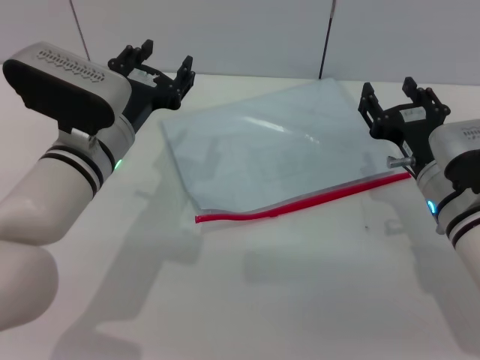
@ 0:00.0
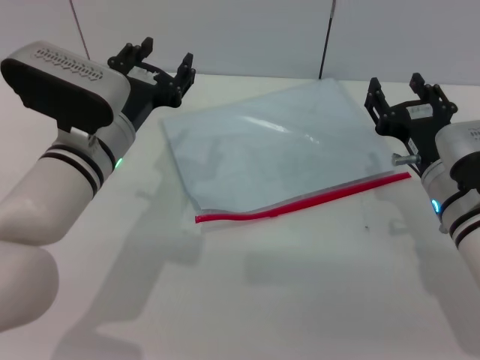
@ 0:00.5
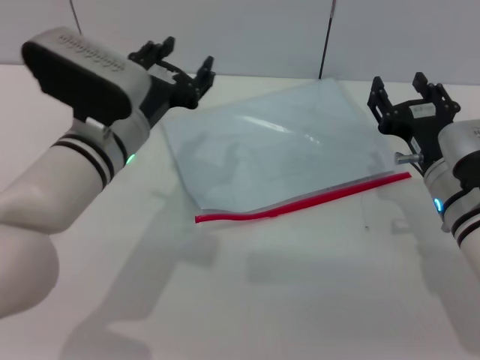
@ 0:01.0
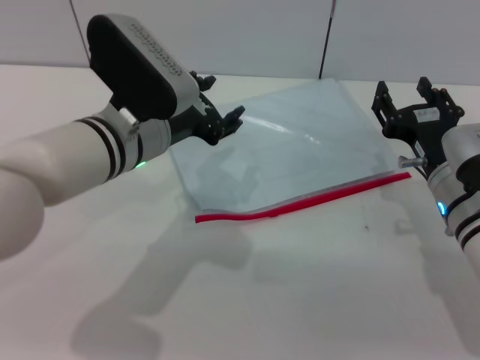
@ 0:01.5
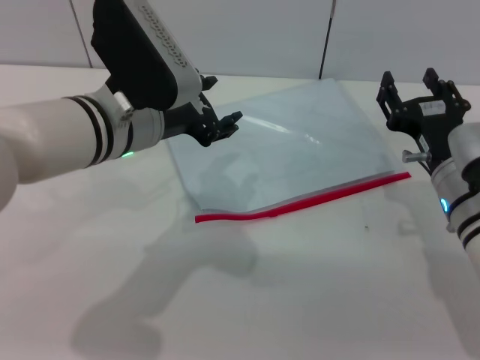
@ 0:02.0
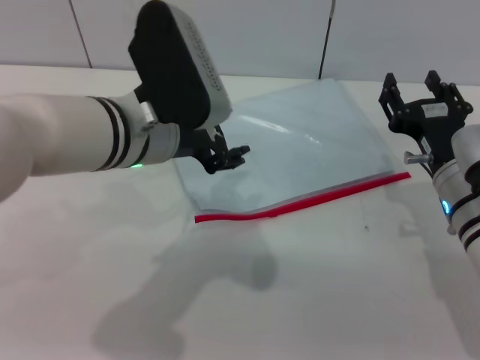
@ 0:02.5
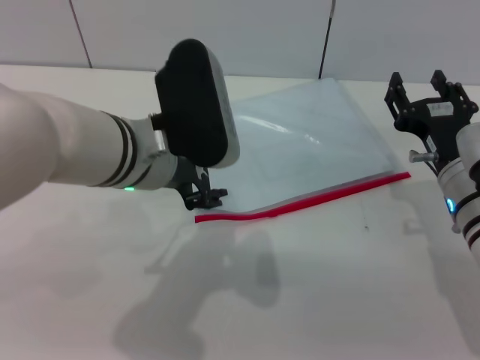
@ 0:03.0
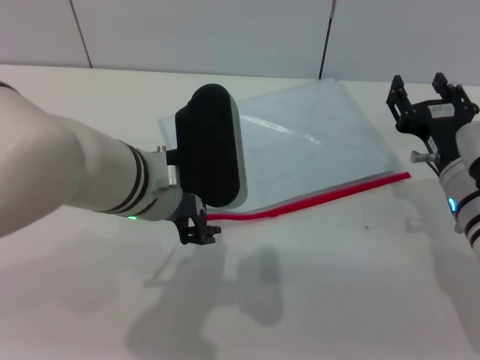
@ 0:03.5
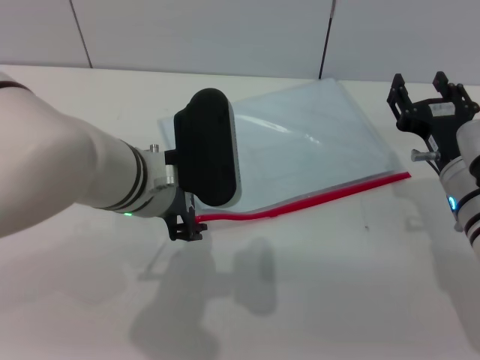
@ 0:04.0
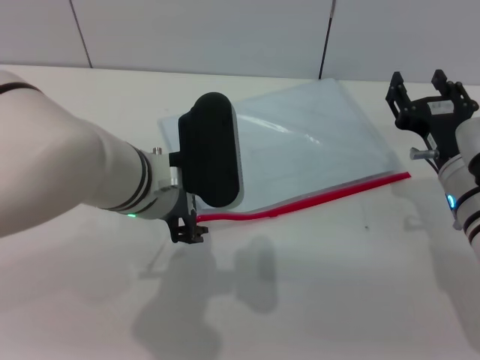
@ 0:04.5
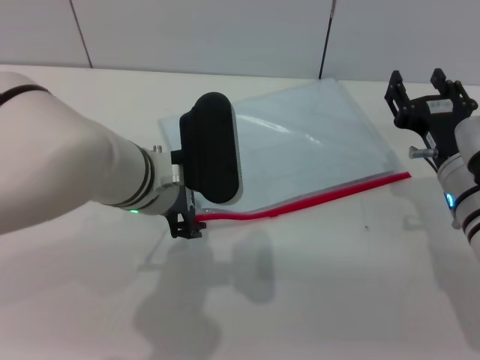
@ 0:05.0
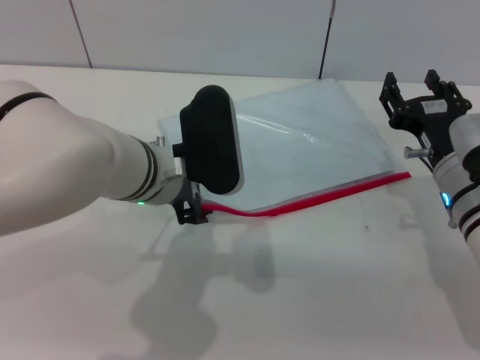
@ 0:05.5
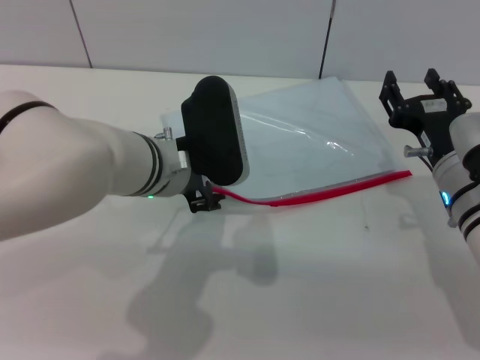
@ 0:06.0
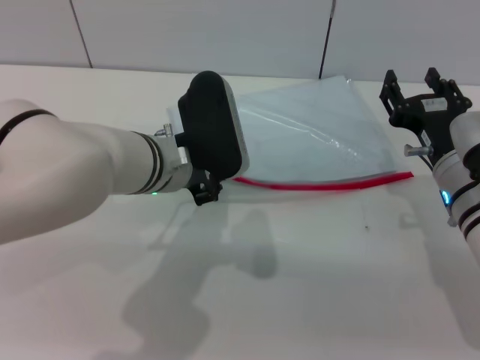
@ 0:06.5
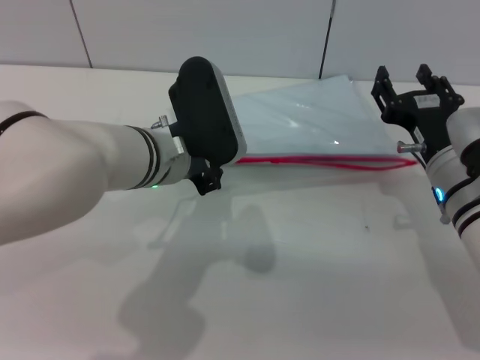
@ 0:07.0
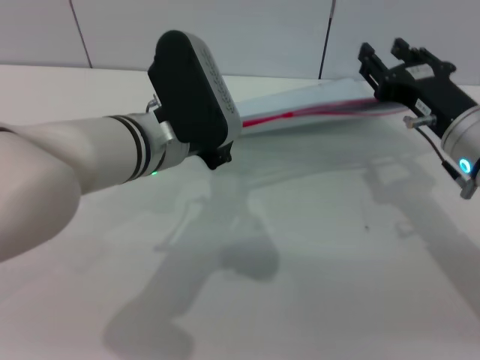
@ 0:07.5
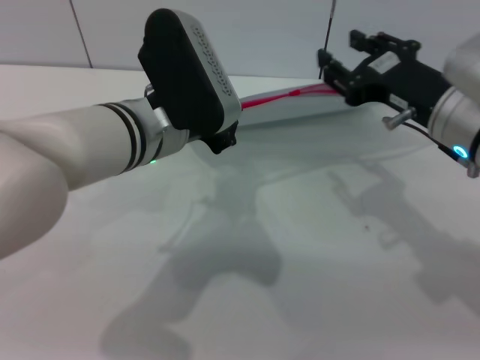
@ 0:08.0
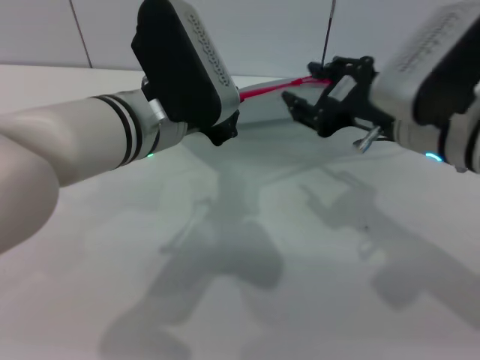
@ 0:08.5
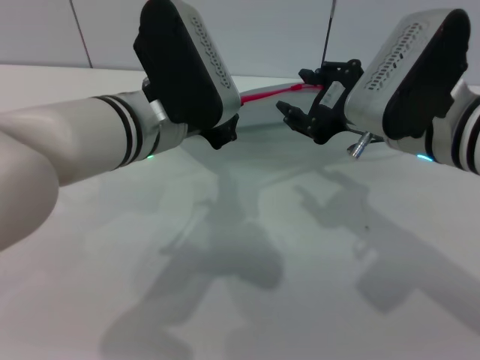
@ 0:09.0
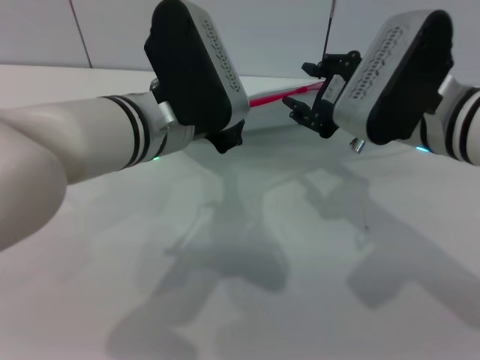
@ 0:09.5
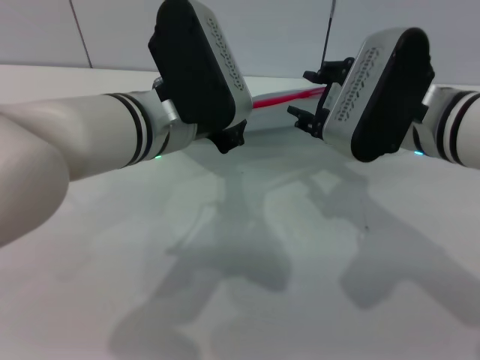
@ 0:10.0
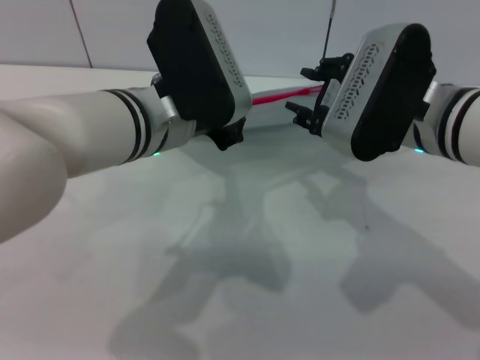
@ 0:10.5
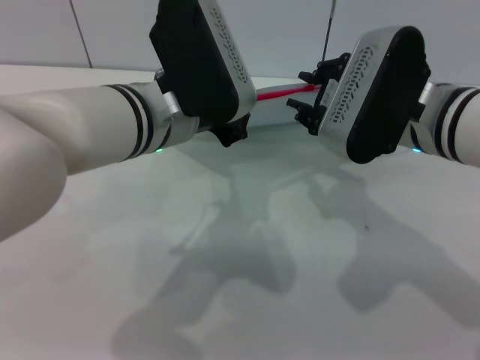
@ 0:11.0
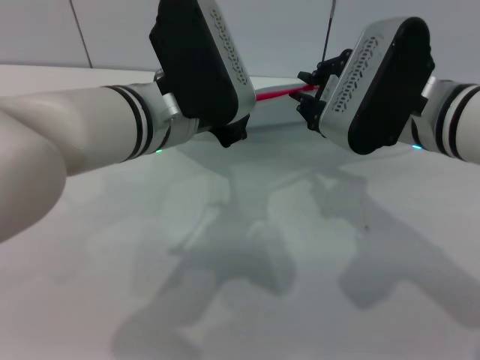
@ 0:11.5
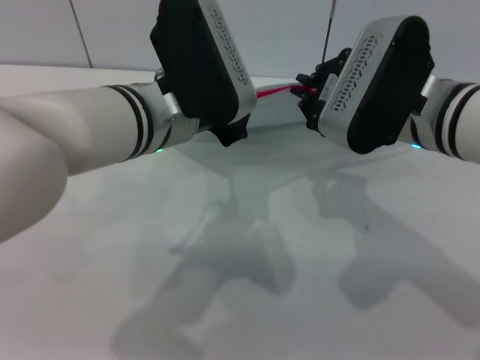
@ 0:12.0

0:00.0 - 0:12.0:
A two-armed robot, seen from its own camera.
Step, 0:00.0 - 0:08.5: Pick up the transparent plastic bag with the left gripper.
0:00.0 - 0:02.0: The left gripper moves upward, approximately 5 cm.
0:04.0 - 0:06.0: There are only small adjustments of the grippers.
0:06.0 - 0:08.0: The left gripper closes its fingers. Meanwhile the right gripper is displaced upward by about 10 cm.
0:10.0 - 0:12.0: The right gripper closes up.

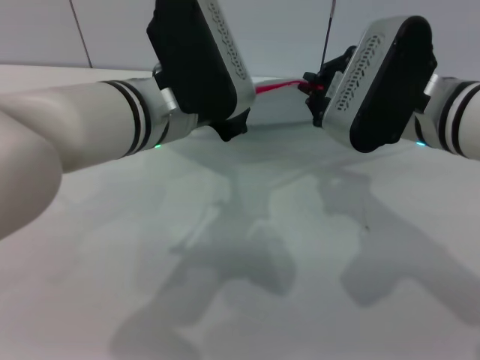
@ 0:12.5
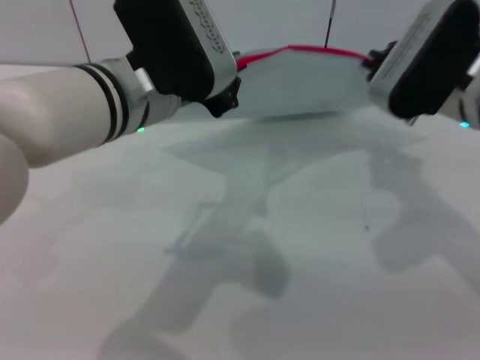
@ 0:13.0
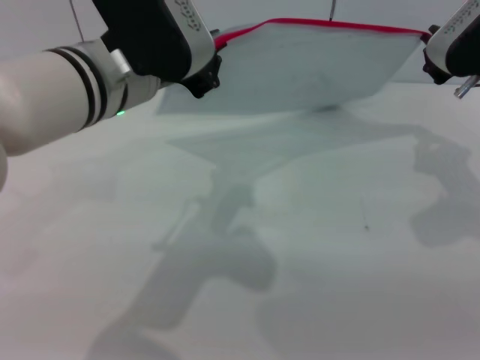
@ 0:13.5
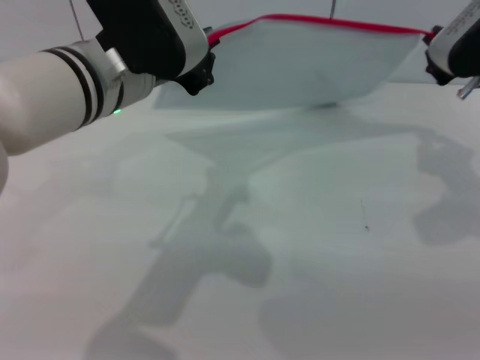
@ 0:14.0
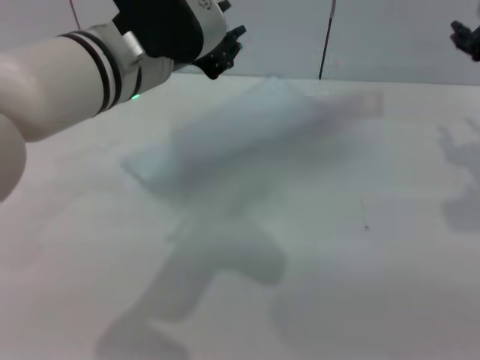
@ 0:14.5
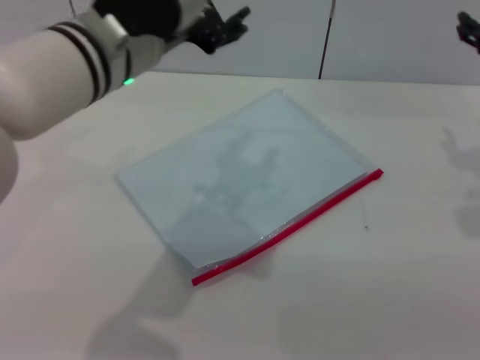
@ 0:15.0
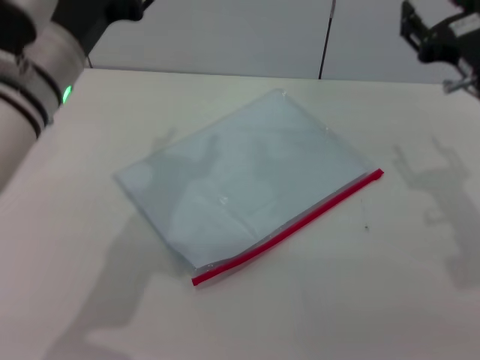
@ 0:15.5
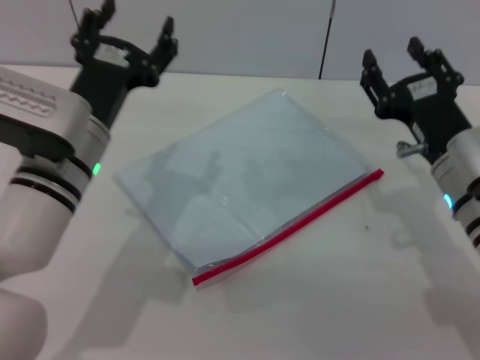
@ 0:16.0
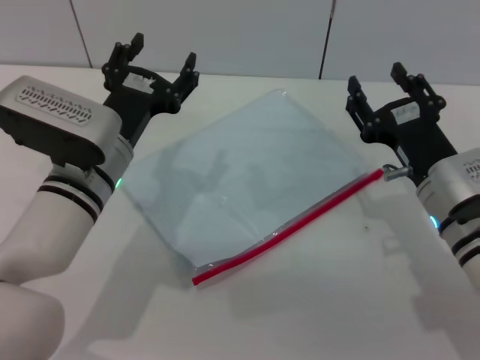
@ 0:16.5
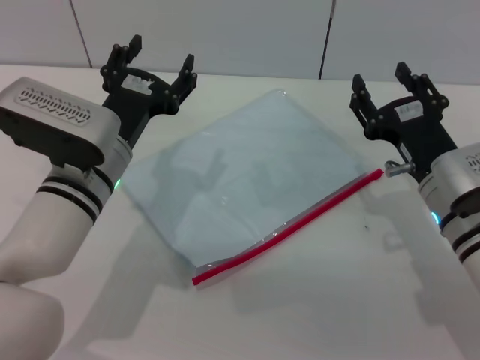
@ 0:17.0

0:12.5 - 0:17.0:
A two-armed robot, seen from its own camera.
0:12.5 - 0:14.5: The right gripper moves to the right, roughly 10 cm, and opens up.
0:14.5 - 0:17.0: The right gripper goes some 15 cm downward, backward and to the left. The left gripper goes roughly 15 cm downward, and opens up.

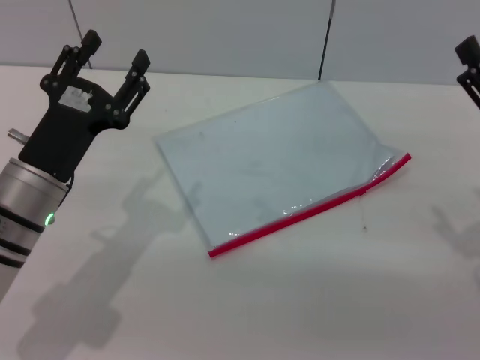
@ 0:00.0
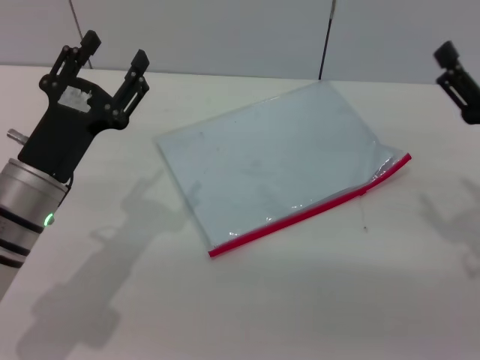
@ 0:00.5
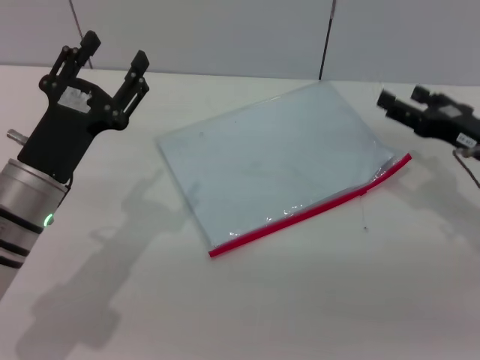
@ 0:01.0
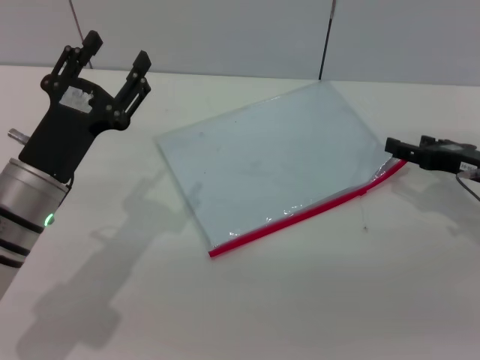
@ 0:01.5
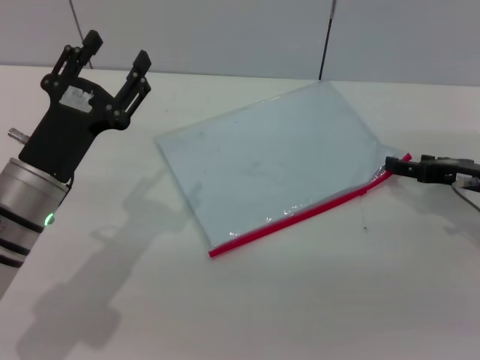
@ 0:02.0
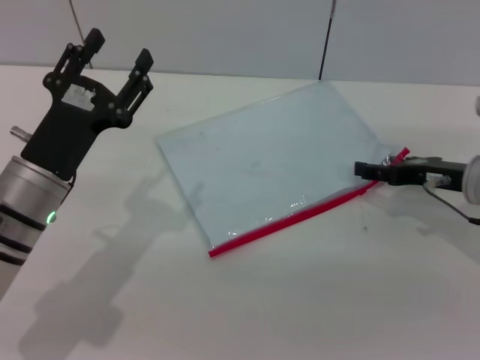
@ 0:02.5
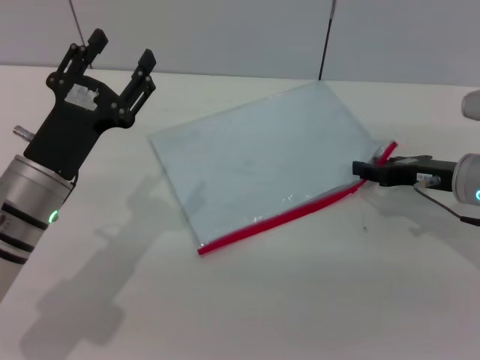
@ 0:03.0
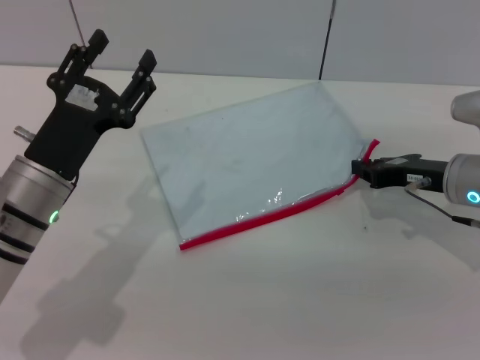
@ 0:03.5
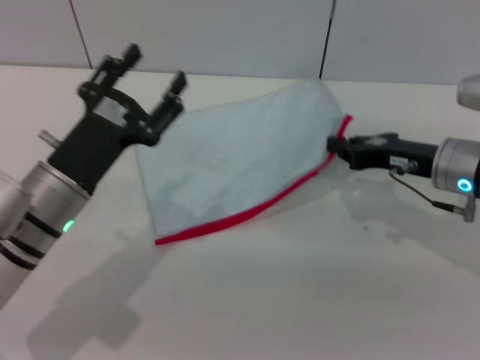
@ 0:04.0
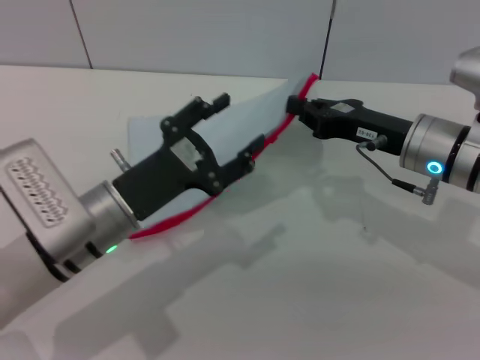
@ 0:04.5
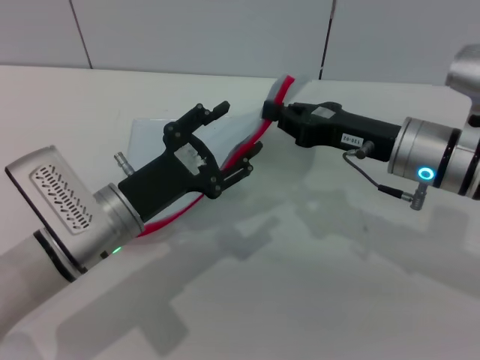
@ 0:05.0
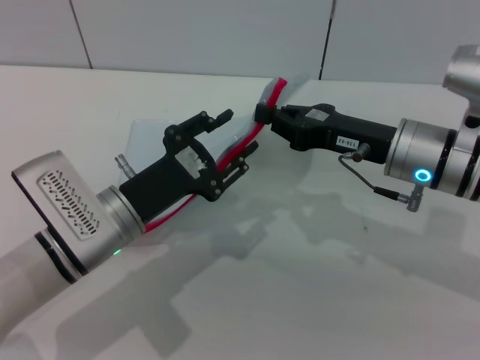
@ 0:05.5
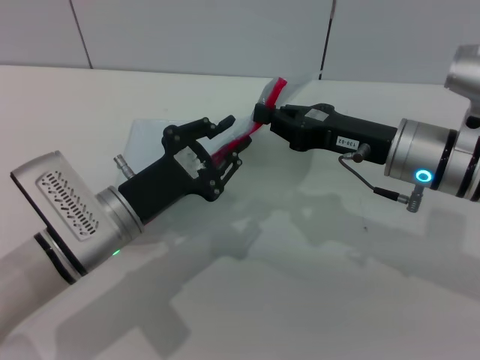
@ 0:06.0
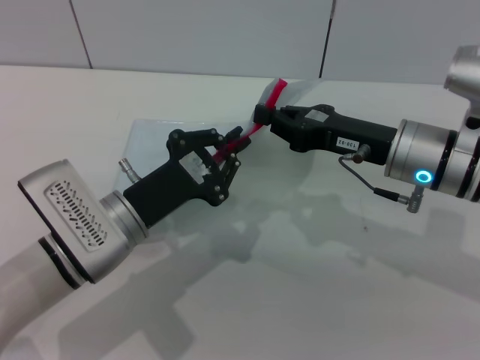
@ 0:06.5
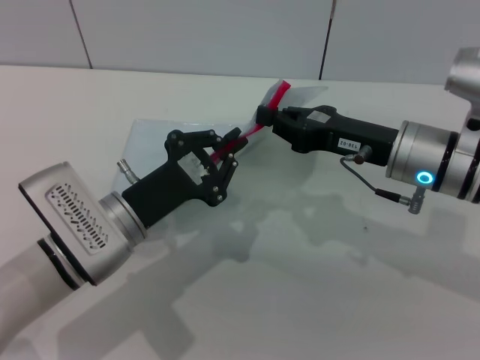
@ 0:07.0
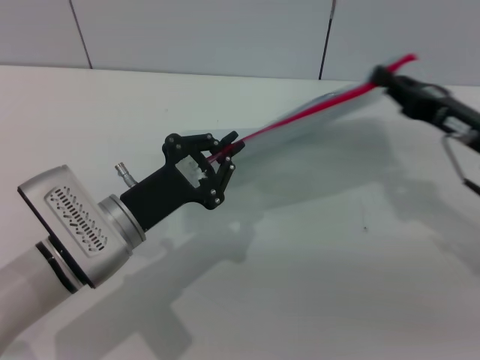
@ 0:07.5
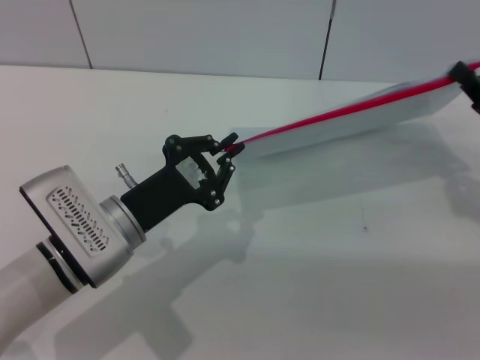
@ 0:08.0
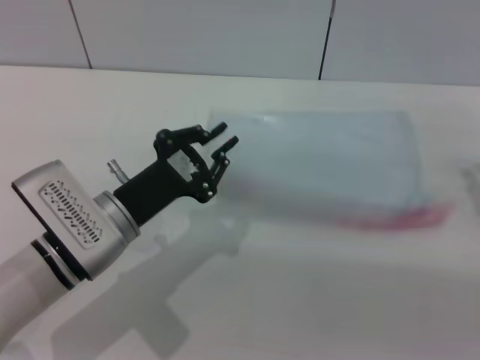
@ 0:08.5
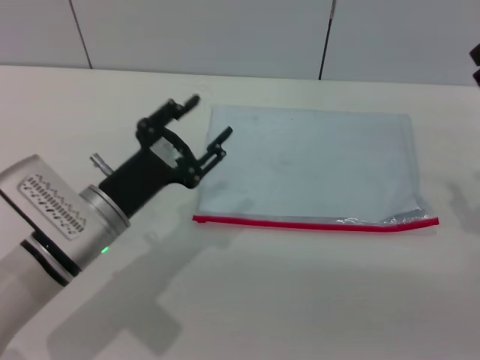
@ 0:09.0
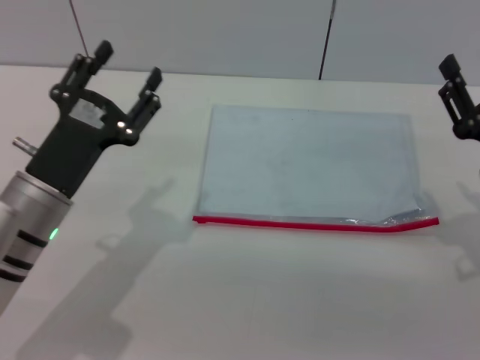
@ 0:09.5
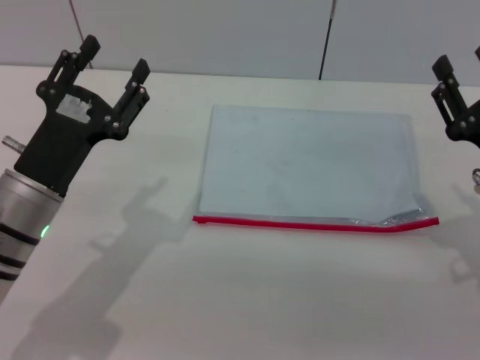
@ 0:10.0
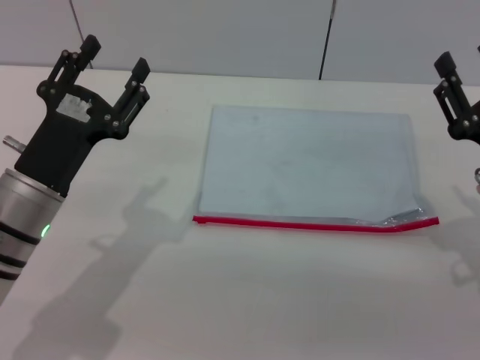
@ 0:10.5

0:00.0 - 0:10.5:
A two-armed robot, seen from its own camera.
Step, 0:00.0 - 0:04.0: Pick up the transparent plastic bag with the right gripper.
Step, 0:08.5 - 0:09.0: Place the transparent plastic bag.
0:00.0 - 0:02.0: The right gripper shifts about 10 cm forward.
0:02.0 - 0:04.0: The right gripper heads to the left, covering roughly 5 cm, and closes its fingers.
0:04.0 - 0:06.5: The left gripper closes its fingers; the right gripper heads to the left, covering approximately 5 cm.
0:06.5 - 0:08.5: The right gripper travels to the right by about 15 cm.
0:08.5 - 0:10.5: The left gripper changes place by approximately 5 cm, and opens. Meanwhile the right gripper is displaced to the left by roughly 5 cm, and opens.
